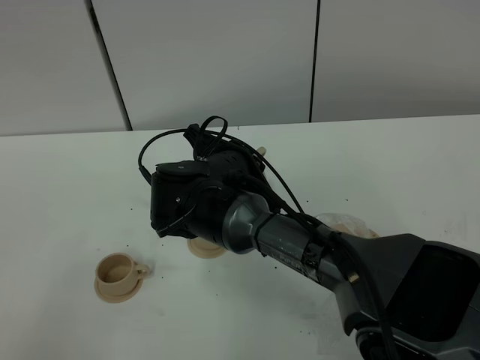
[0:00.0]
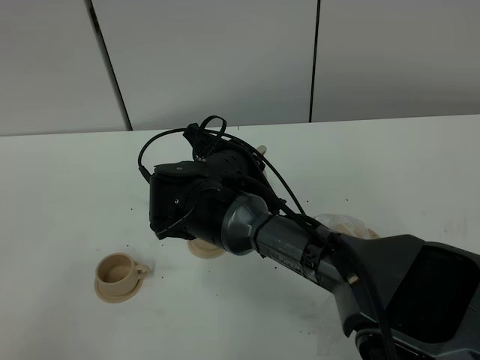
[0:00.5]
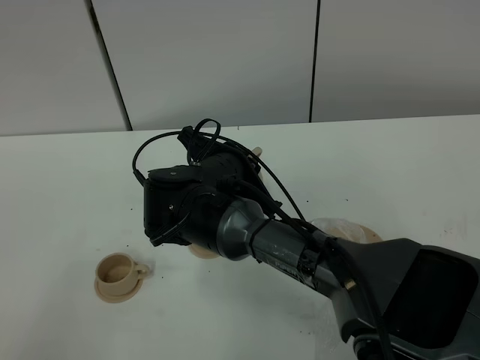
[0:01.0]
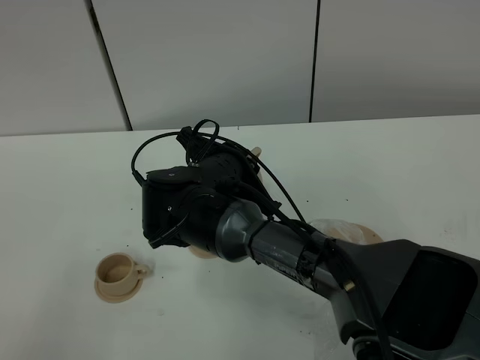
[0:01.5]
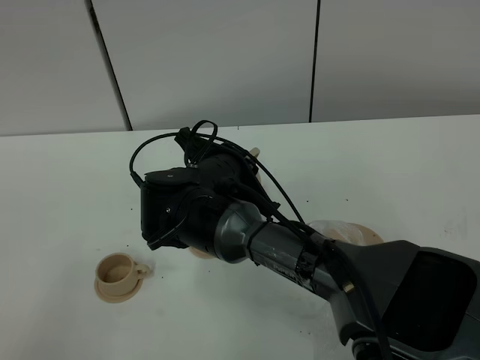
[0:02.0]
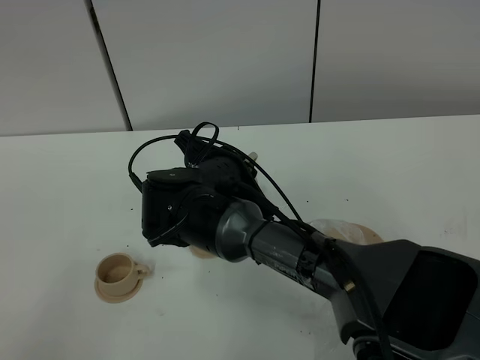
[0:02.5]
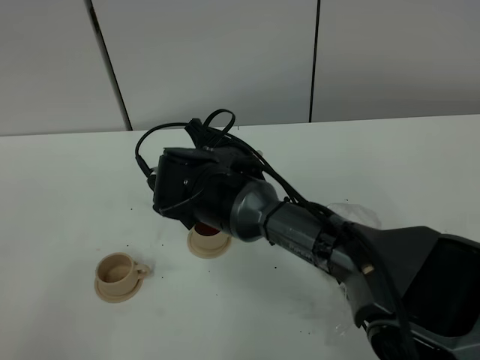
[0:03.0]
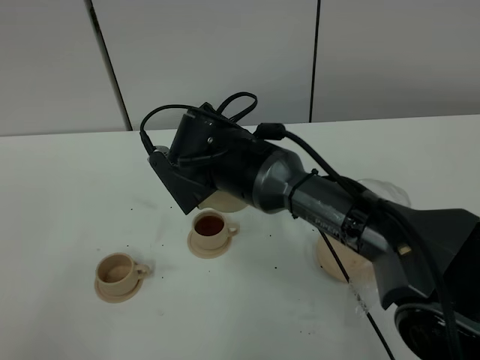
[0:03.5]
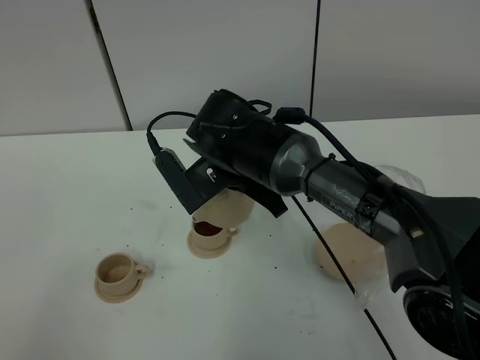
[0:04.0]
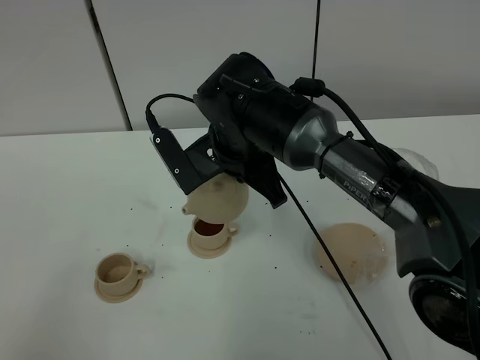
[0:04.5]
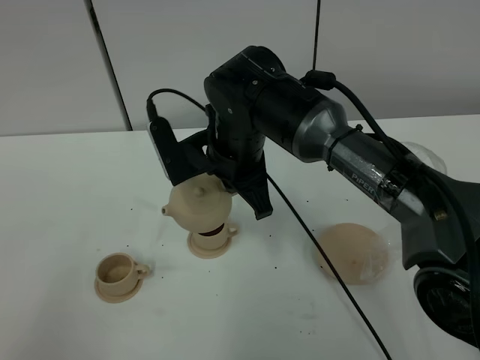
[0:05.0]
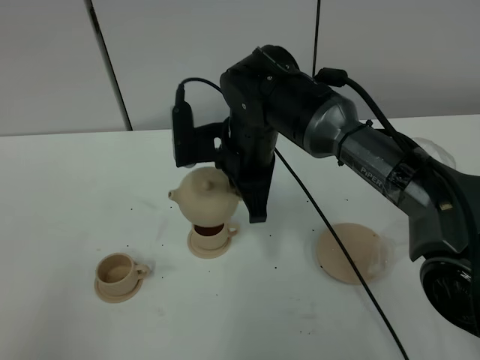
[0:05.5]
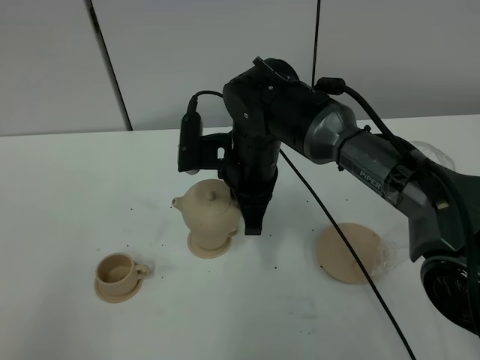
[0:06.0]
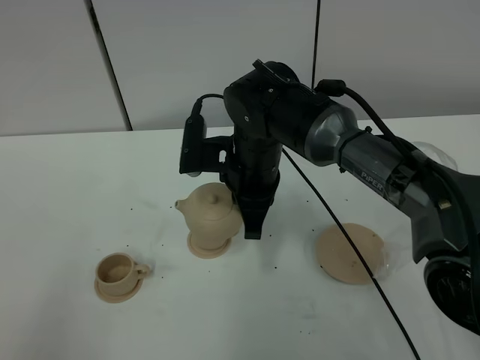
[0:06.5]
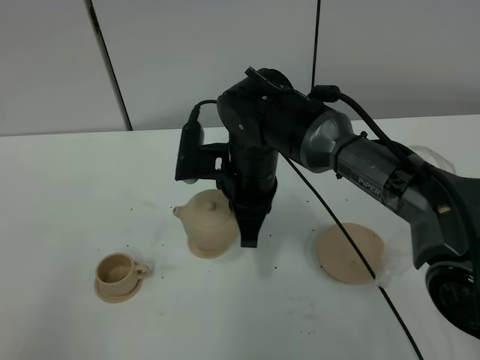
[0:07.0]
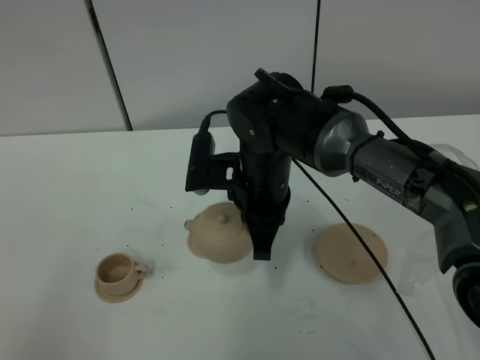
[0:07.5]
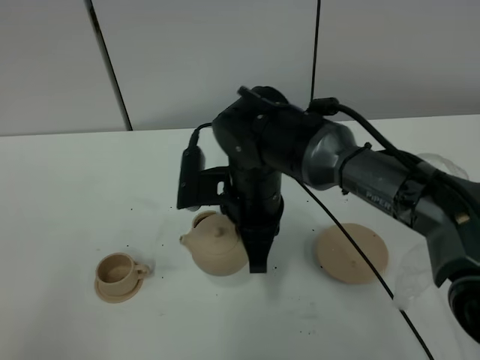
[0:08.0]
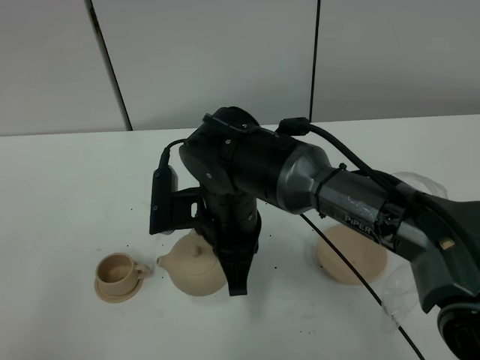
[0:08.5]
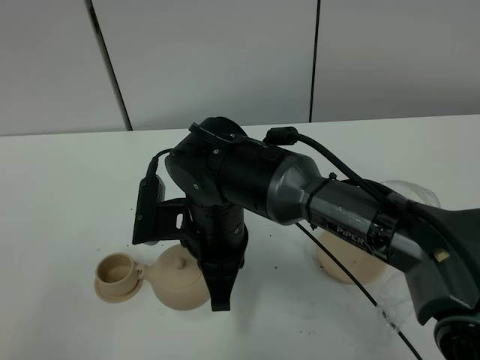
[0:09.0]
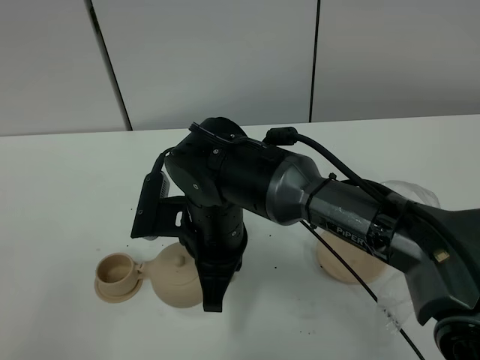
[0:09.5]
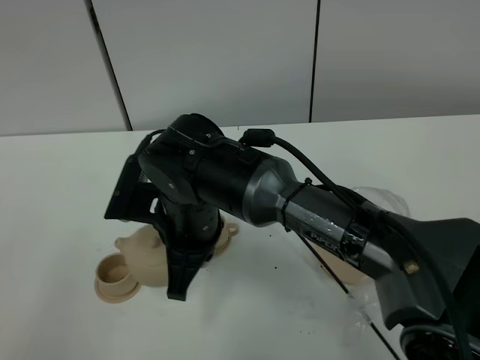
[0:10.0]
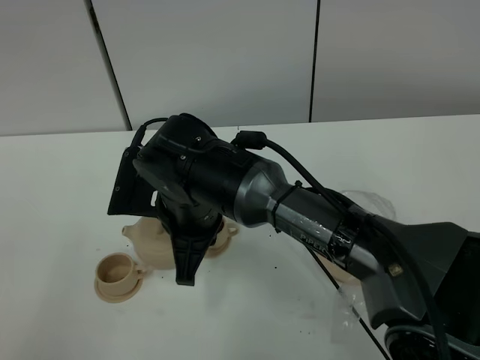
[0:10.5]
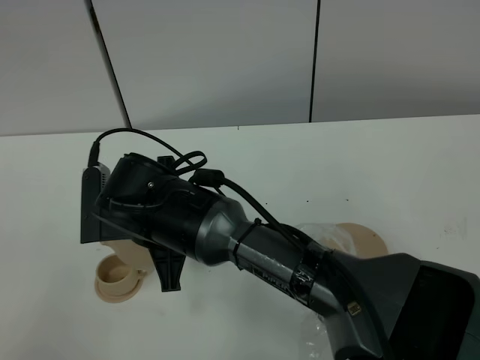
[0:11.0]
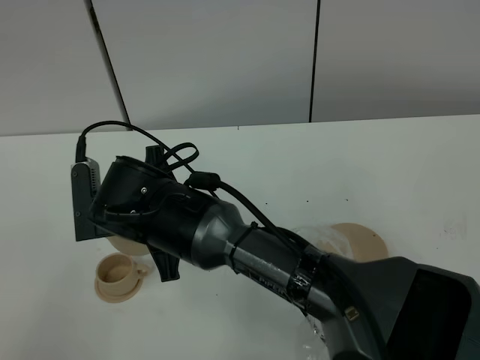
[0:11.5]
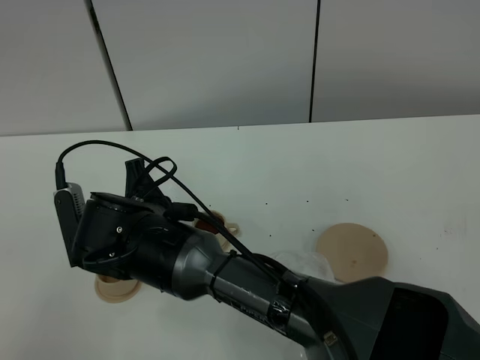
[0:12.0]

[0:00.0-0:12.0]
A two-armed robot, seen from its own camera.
Task of the whole recording: grasp the brown teapot and pour the tea into the two brown teacups one by one, put the brown teapot back in its original place.
Step, 0:00.0 to 0:02.5: Pour tea into the teacup with the right gripper.
0:00.0 to 0:02.0: Both grippers stay put.
0:02.0 to 0:04.0: The right gripper moves approximately 5 cm.
0:06.0 to 0:08.0: The grippers make only small movements.
0:08.0 to 0:10.0: The right gripper is displaced to the left by about 5 cm.
0:10.0 to 0:12.0: The right gripper heads to the left, covering about 5 cm.

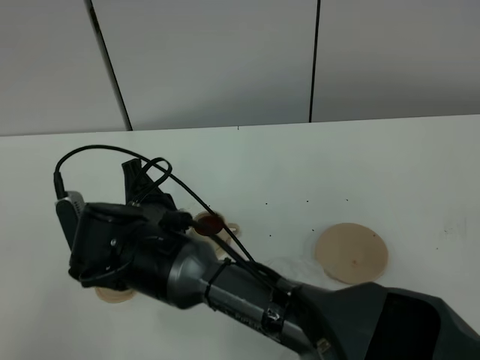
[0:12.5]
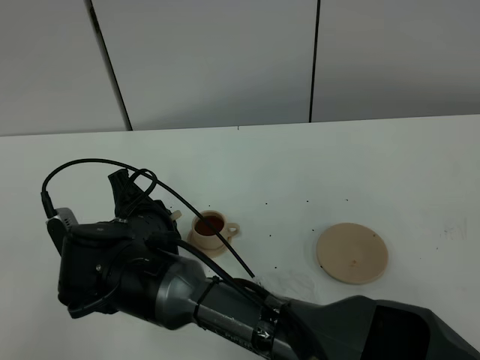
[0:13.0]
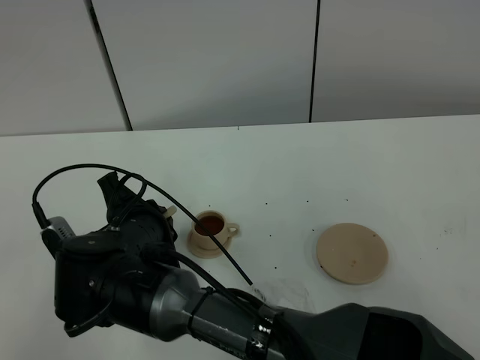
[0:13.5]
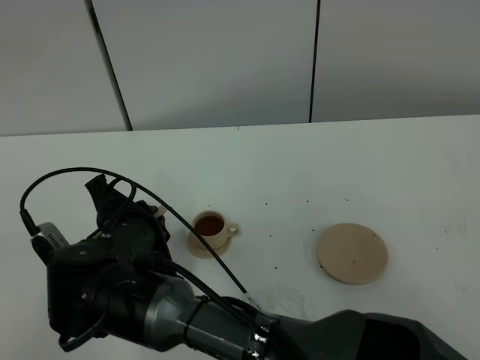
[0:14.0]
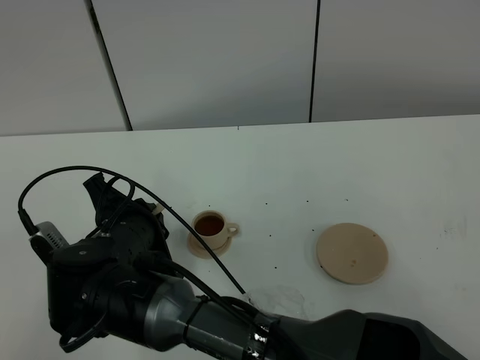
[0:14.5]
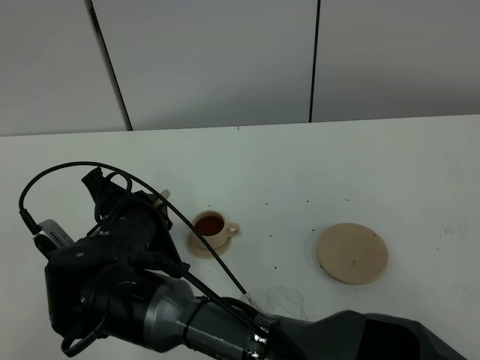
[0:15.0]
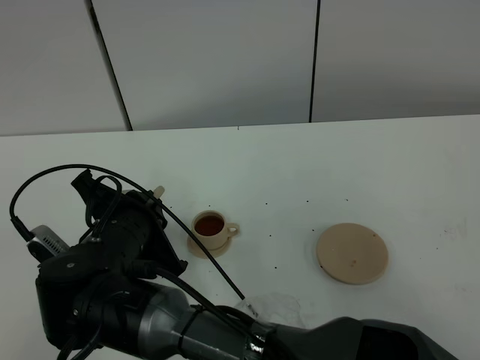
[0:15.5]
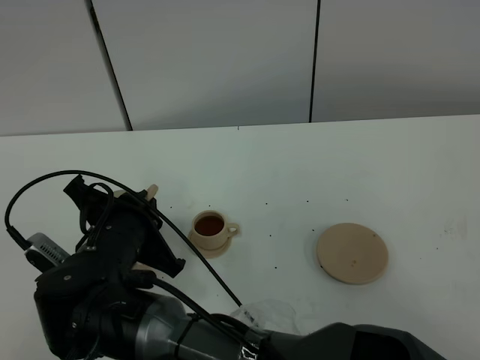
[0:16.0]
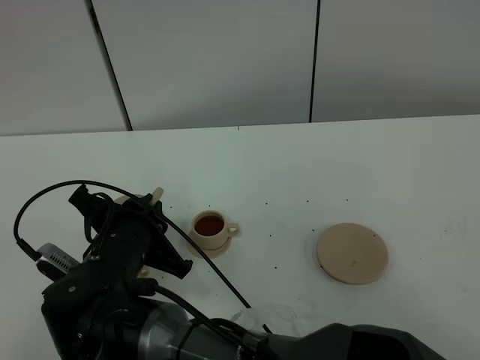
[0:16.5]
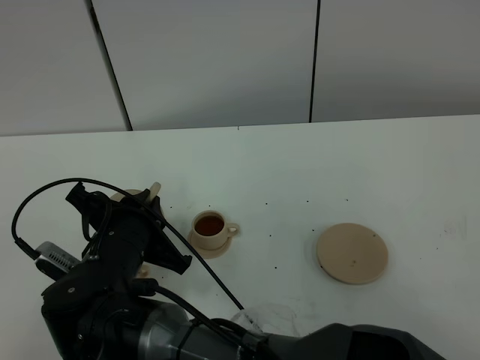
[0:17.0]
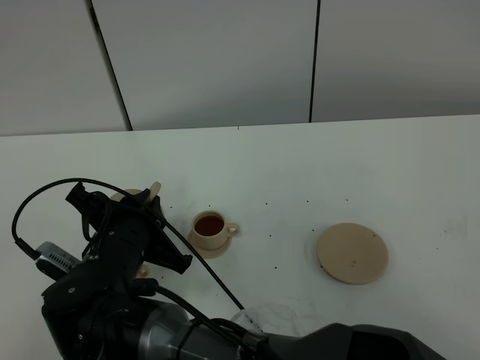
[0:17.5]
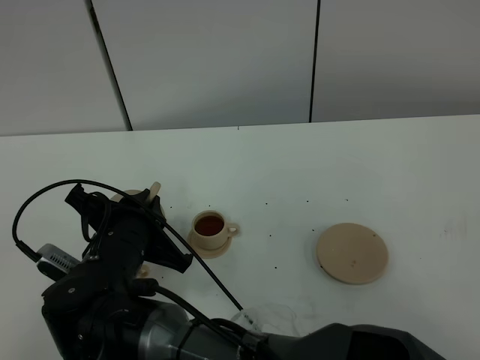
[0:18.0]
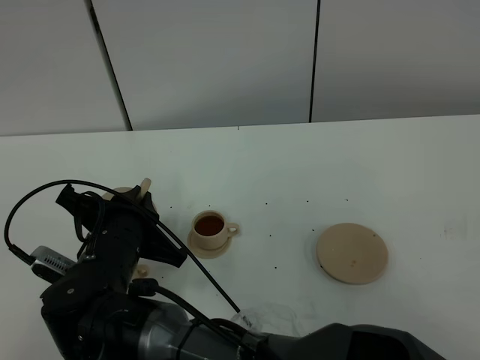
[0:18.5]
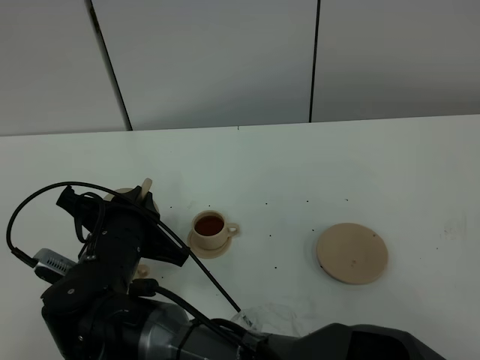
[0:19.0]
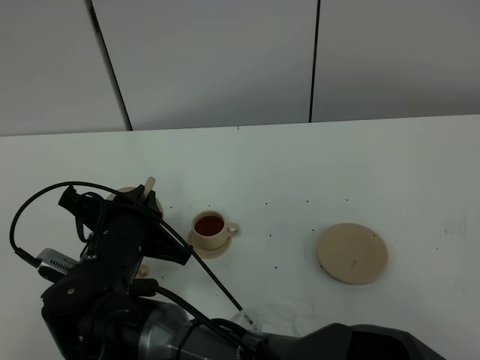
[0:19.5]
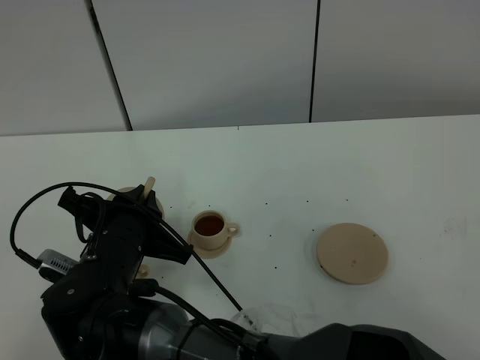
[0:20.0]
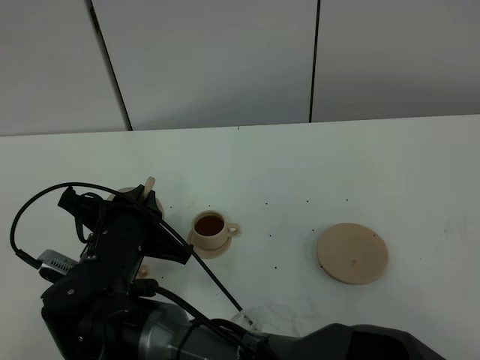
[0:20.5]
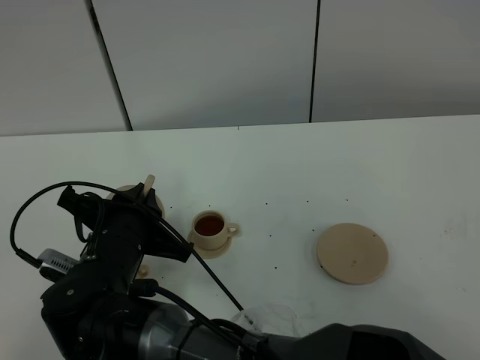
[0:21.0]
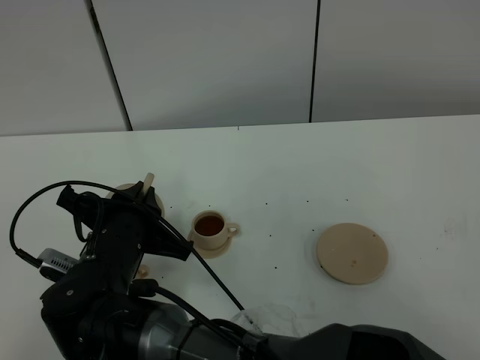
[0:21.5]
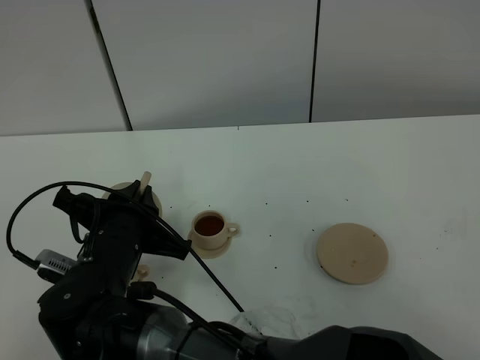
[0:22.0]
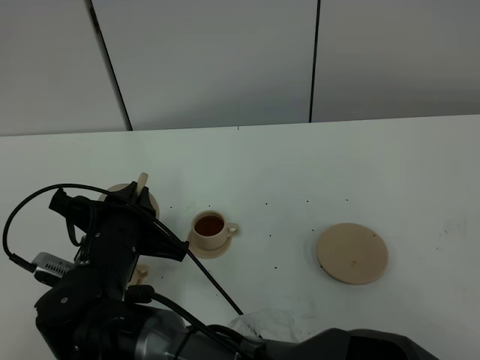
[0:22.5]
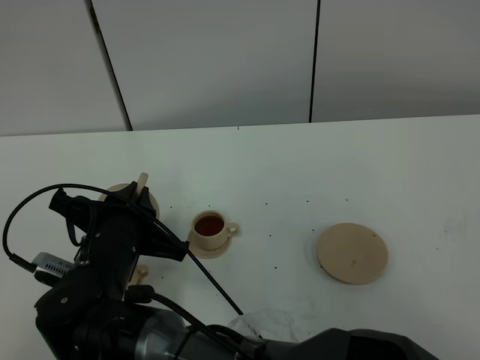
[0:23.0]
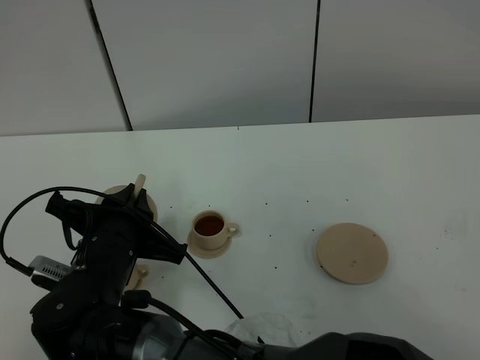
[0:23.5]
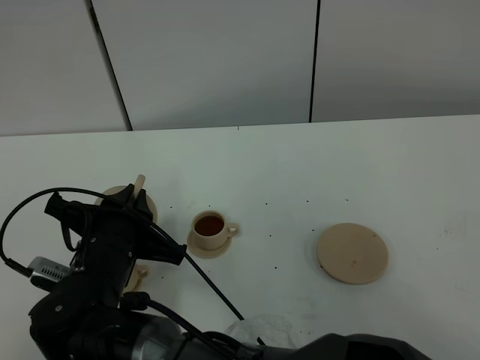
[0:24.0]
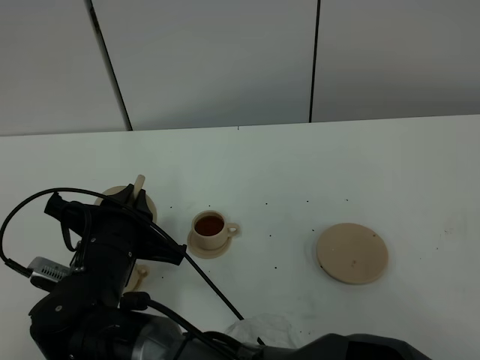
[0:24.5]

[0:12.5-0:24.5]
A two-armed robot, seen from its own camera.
Task of the whole recording: grasp the brown teapot and pour the tea into the two brown teacups one by one, put the brown teapot back in its original place.
0:14.5 to 0:16.5: The grippers make only small movements.
0:16.5 to 0:18.5: There are only small adjustments of the grippers.
0:18.5 to 0:20.5: Neither gripper changes place.
0:20.5 to 0:24.5: Both grippers stay put.

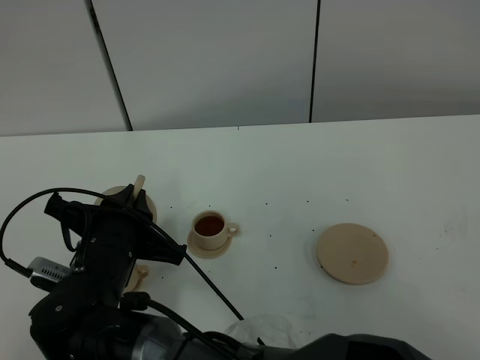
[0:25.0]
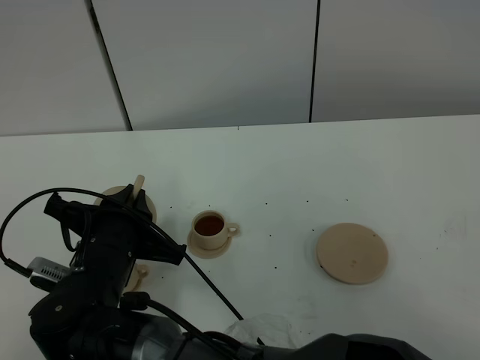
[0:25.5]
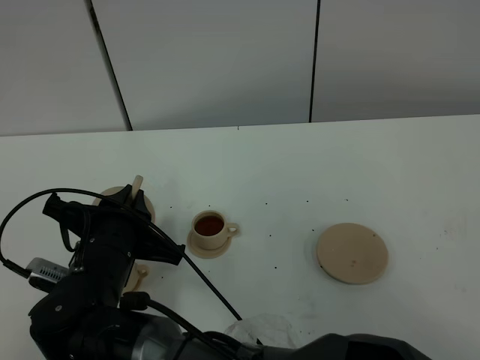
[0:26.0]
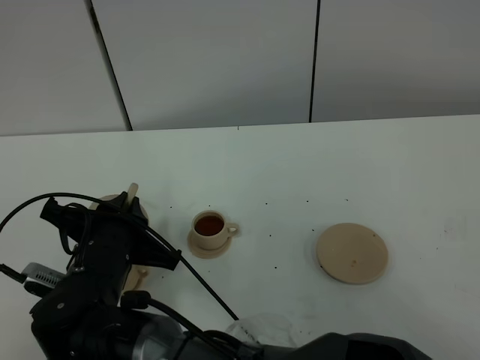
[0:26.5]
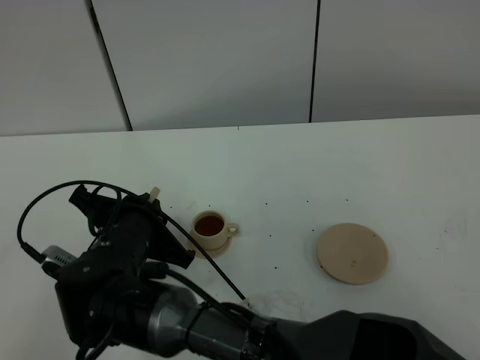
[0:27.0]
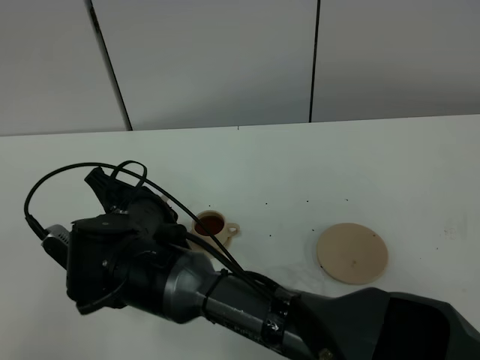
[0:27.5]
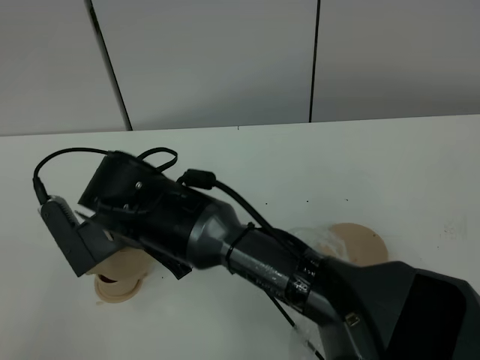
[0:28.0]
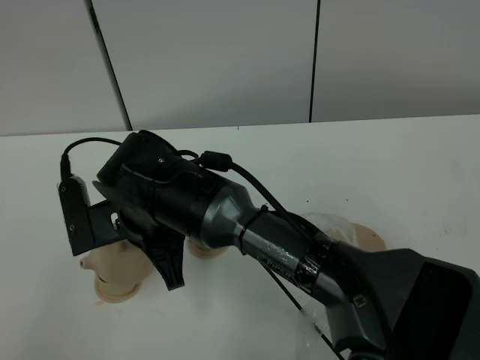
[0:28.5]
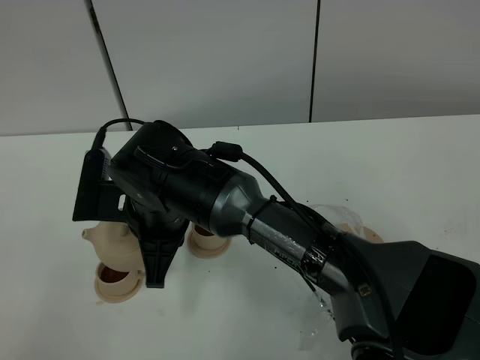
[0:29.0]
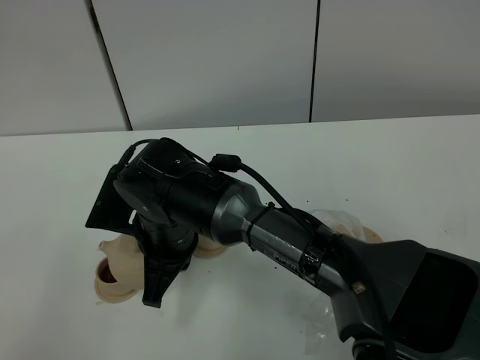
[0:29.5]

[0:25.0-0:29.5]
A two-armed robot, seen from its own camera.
Task of the whole recording: grasp the brown teapot and pour the tea into the two brown teacups one by one, put the brown teapot back in its original place.
0:25.0 to 0:27.0: The grippers move only a little.
0:27.0 to 0:29.5: The right gripper moves roughly 5 cm.
